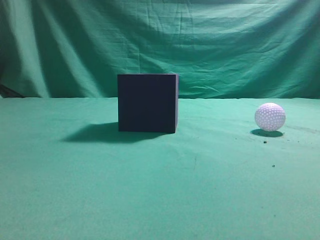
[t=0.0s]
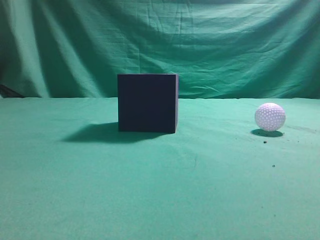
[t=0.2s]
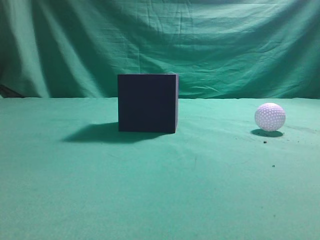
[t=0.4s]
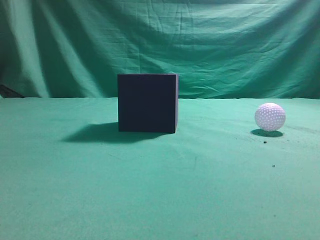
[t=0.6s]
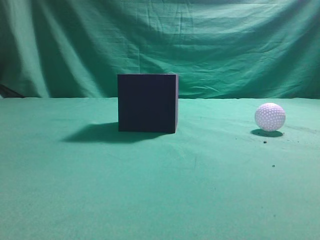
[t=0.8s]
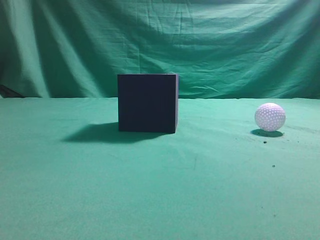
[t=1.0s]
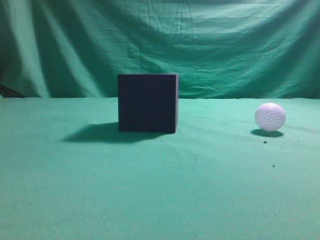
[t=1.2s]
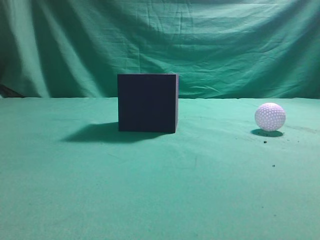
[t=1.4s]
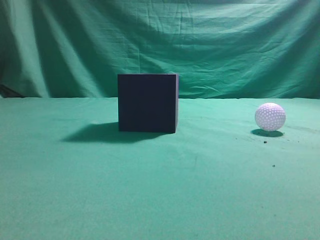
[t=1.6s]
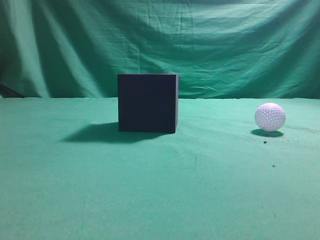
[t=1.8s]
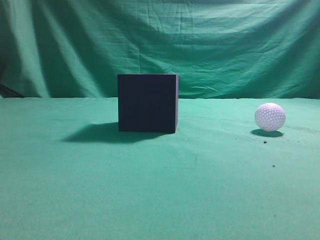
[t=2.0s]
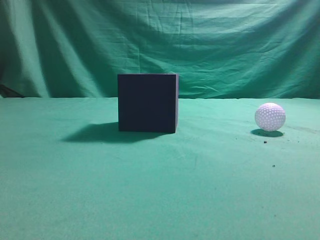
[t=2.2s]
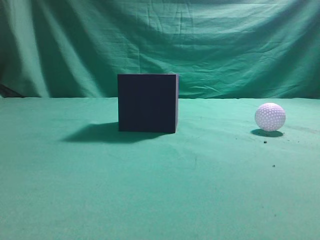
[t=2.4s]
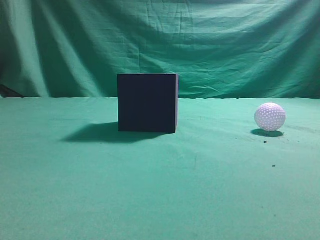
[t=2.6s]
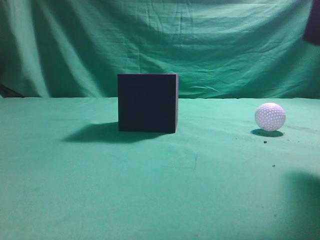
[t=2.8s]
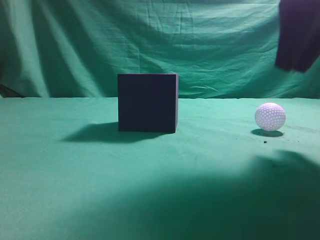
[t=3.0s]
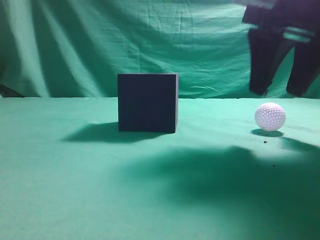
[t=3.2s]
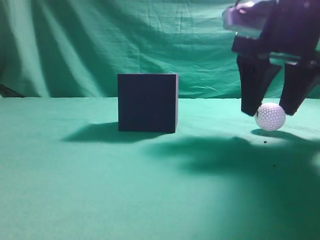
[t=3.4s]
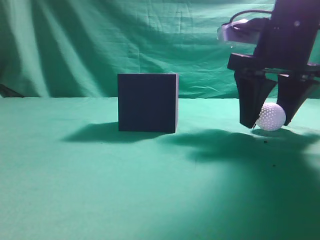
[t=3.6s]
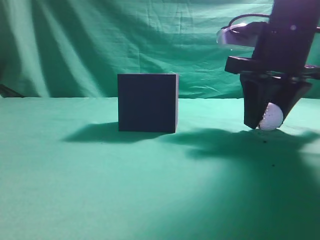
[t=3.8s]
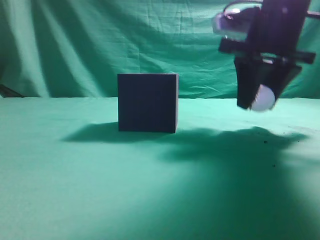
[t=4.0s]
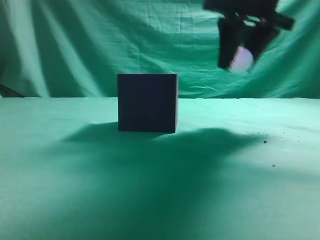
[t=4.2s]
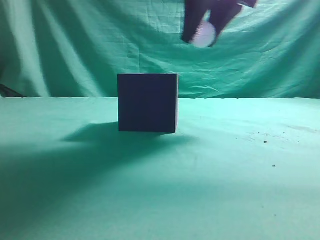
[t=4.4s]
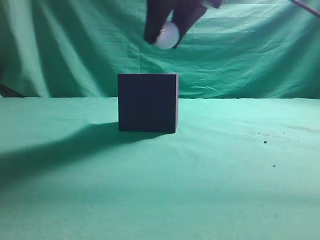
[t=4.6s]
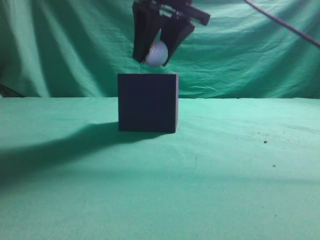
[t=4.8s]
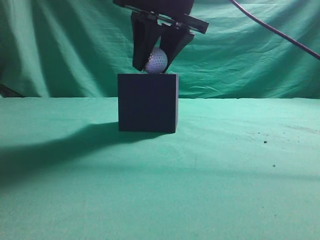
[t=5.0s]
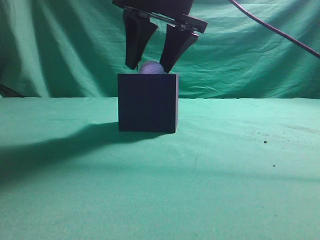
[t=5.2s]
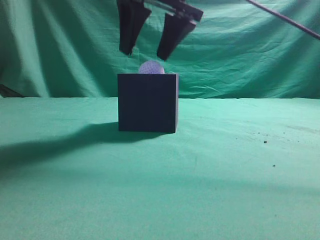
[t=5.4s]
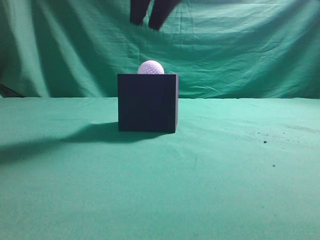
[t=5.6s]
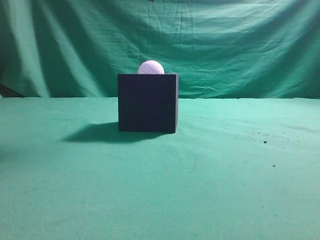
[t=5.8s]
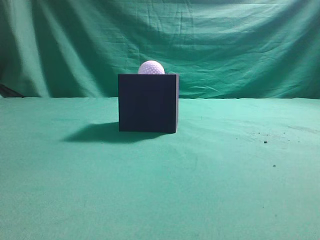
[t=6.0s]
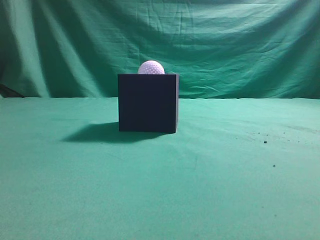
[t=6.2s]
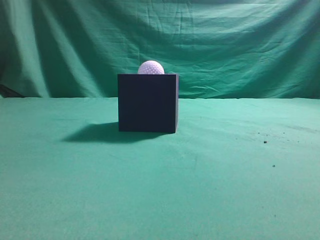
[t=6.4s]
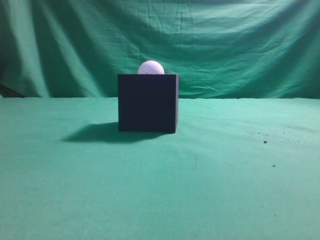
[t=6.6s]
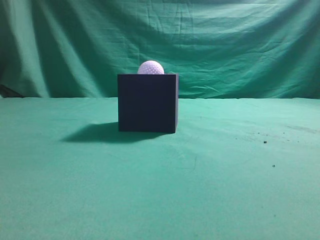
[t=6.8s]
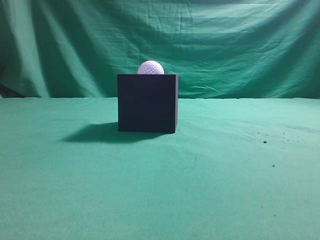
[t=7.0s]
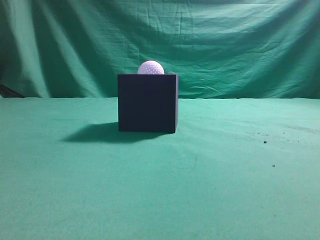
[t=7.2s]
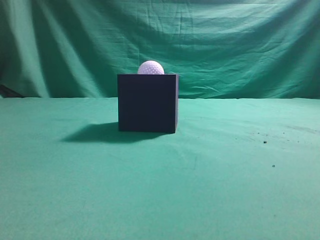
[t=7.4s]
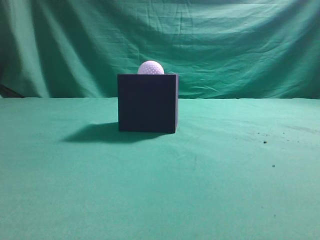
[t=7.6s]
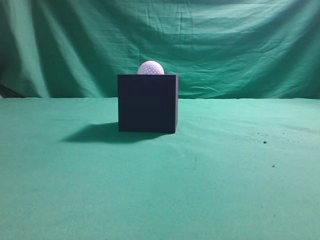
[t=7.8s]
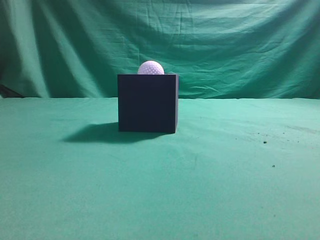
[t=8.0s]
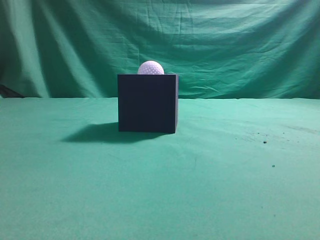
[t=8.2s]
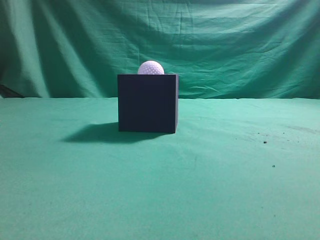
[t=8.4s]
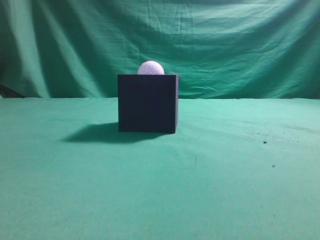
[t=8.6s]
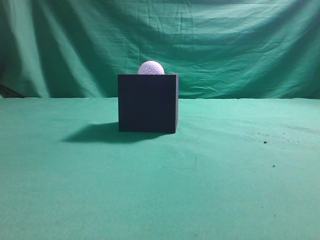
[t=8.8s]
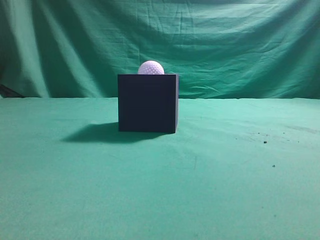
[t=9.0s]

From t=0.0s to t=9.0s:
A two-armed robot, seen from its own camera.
Task of the whole recording: Pick up the ball and place it in the circular groove above the cube.
Step, from t=0.0s to t=4.2s: Grasp the sphere on the table.
Step, from t=4.4s to t=5.4s: Place the sphere into the sphere-shaped recess.
From t=1.6s to t=3.0s: The right gripper goes roughly 25 cm forward and to the left.
From t=3.0s to t=4.4s: The right gripper is displaced forward and to the left by roughly 15 cm, and opens and closes again.
From t=4.4s to t=6.0s: The right gripper travels upward and to the left by about 10 cm, and closes.
